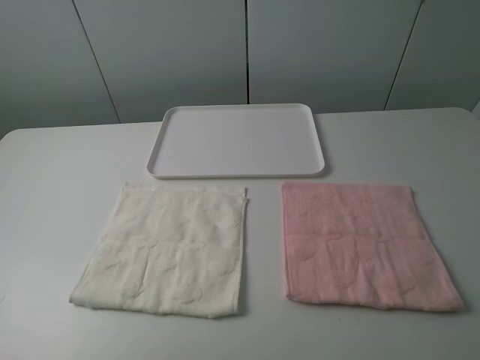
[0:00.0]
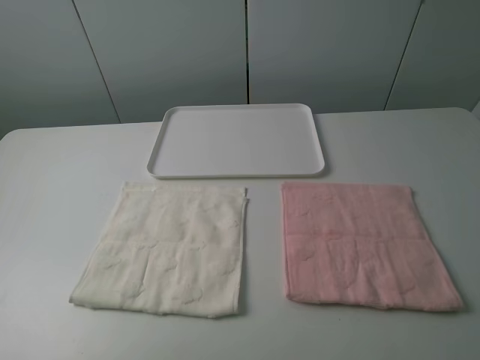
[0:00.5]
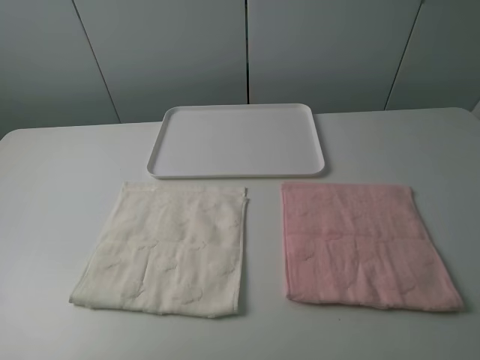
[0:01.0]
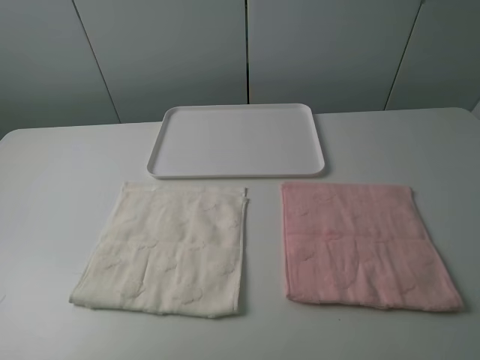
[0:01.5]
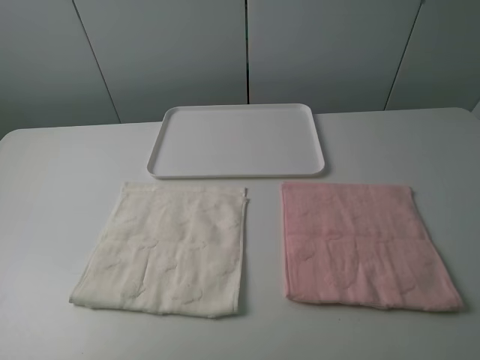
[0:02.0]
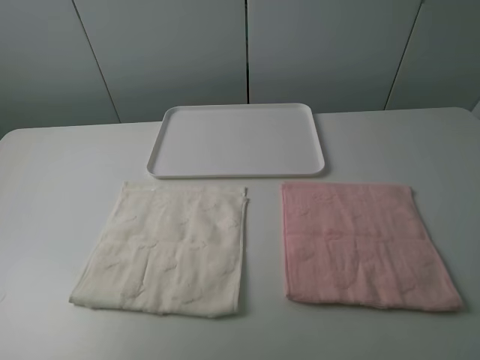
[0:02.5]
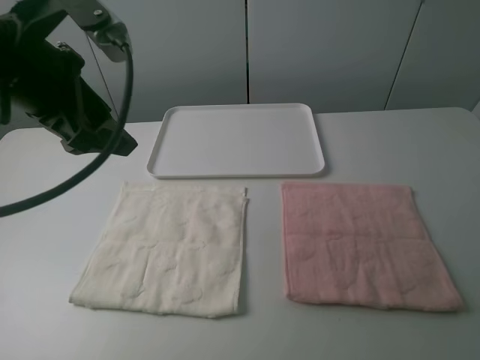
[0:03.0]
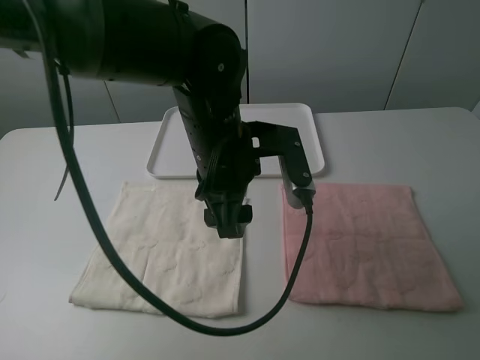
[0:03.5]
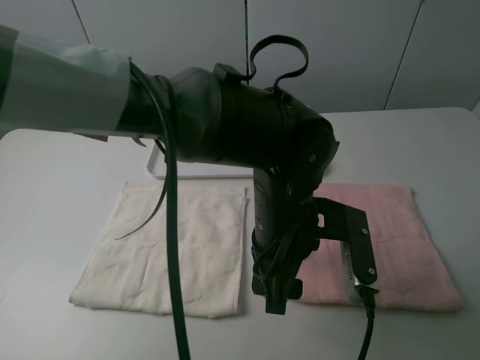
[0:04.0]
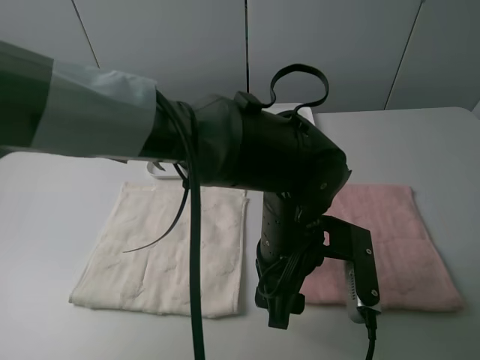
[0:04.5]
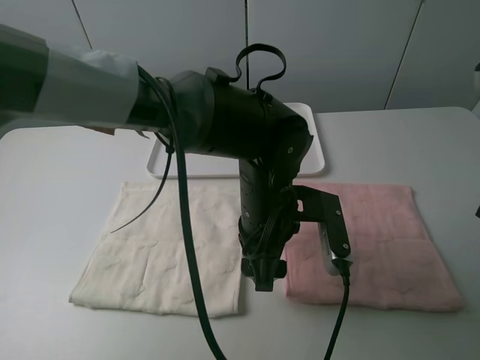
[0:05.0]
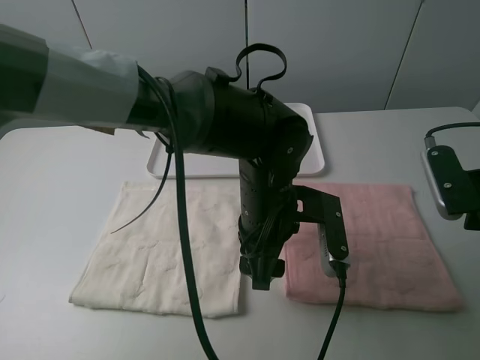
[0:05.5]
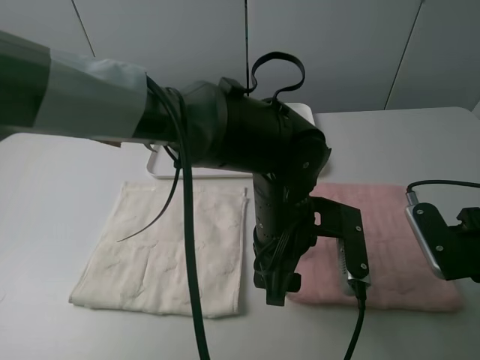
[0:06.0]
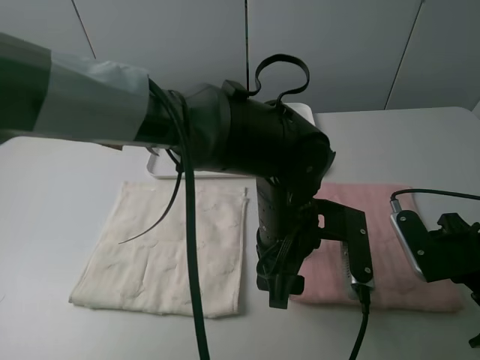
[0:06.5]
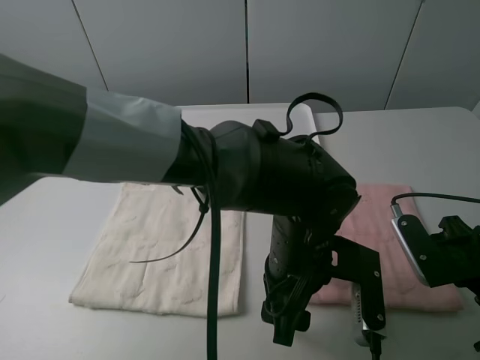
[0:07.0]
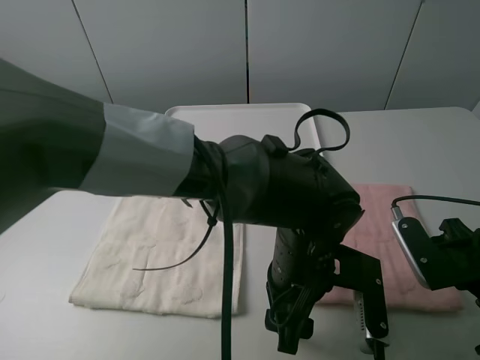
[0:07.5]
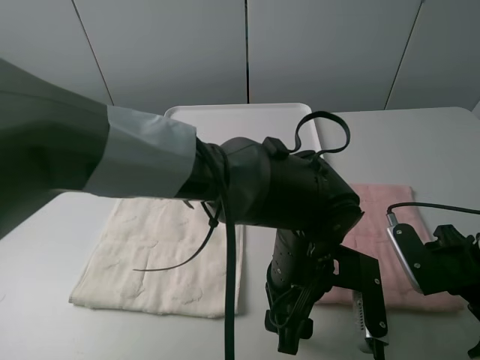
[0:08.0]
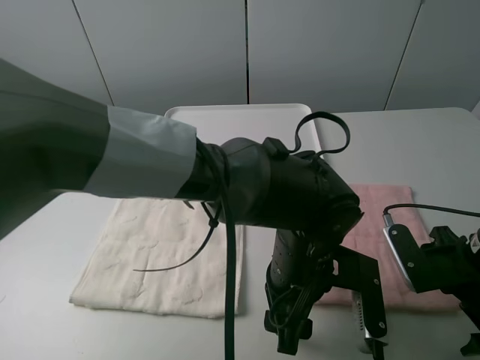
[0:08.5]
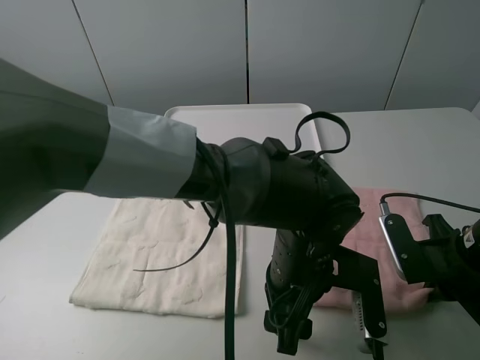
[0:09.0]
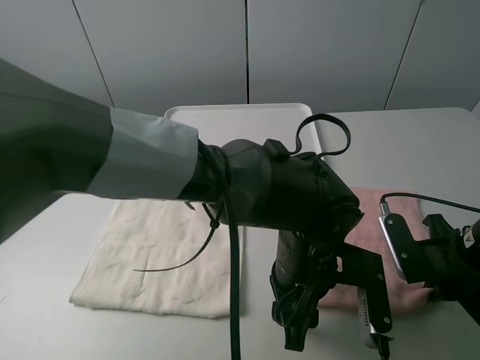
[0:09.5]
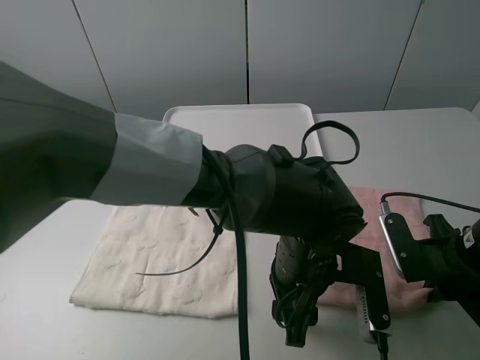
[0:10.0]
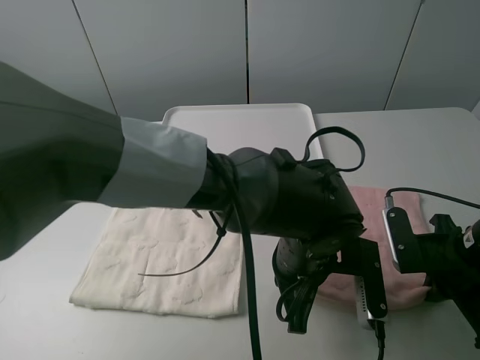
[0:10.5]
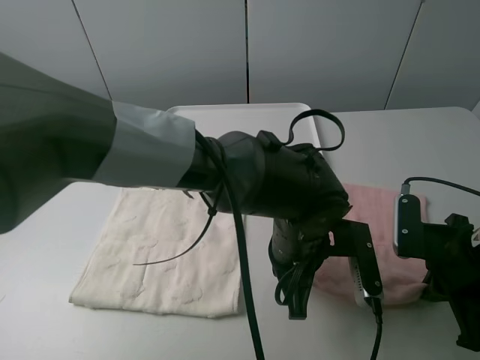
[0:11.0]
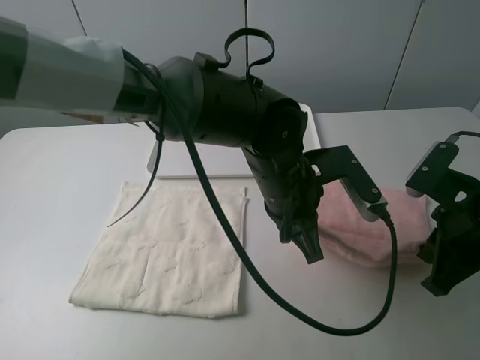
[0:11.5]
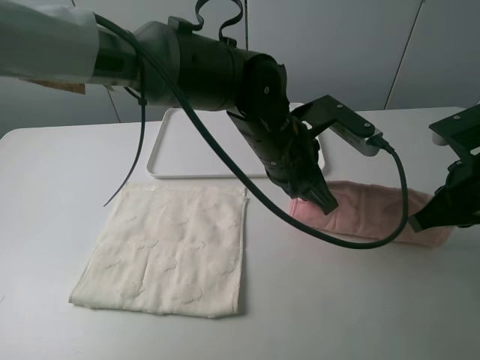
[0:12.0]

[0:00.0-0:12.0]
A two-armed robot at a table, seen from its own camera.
Task of the whole recording: fold one of the towels by two grippers and place it on the tray,then fold another towel by two grippers and place it on the folded towel.
Step, 0:00.0 to 0:10.0: Grasp the pink towel with the left gripper.
0:02.0 to 0:04.0: The left gripper is displaced to the right and forward by roughly 40 cm.
0:04.0 to 0:06.0: The right gripper shifts some 20 cm forward and downward.
0:06.0 to 0:08.0: The left gripper shifts by some 5 cm.
0:08.0 to 0:10.0: The right gripper closes.
0:10.0 to 0:12.0: The right gripper shifts roughly 10 cm upward. The left gripper travels forward and upward by roughly 15 cm, and closes.

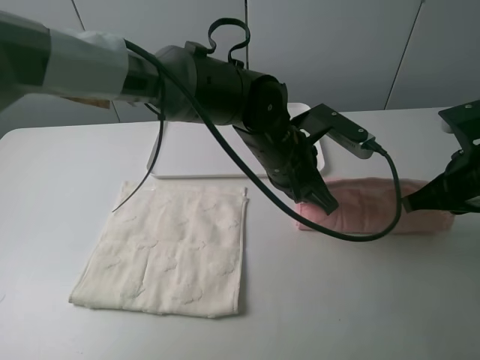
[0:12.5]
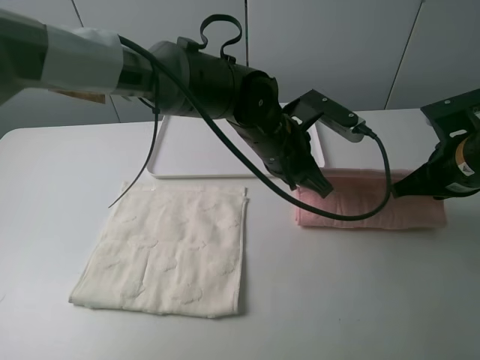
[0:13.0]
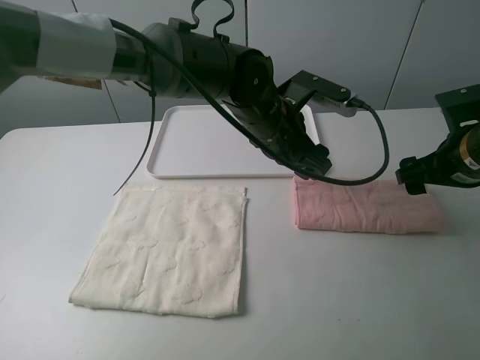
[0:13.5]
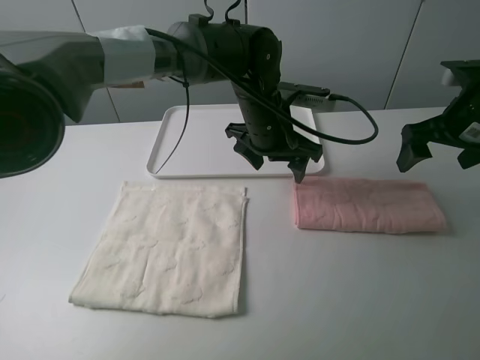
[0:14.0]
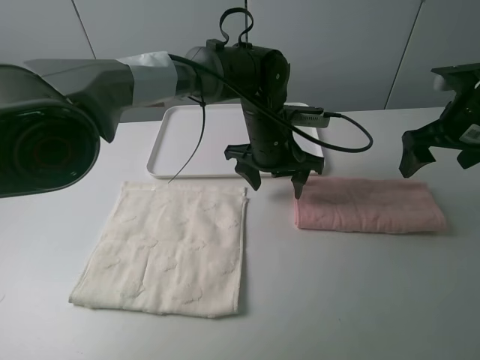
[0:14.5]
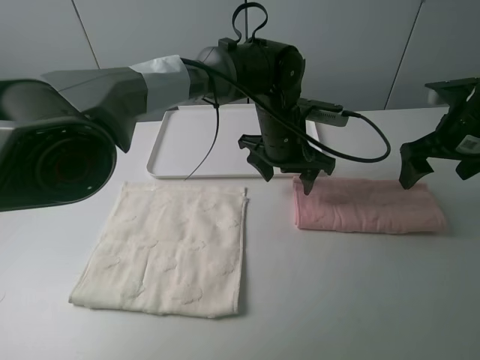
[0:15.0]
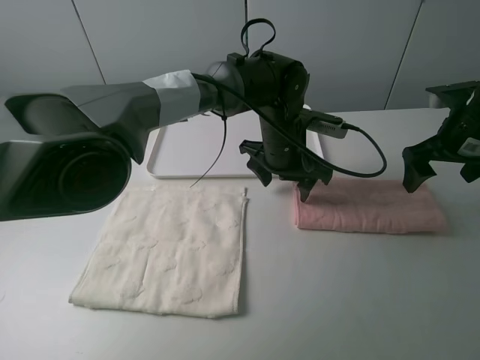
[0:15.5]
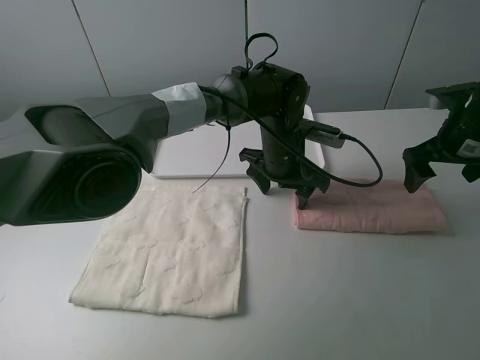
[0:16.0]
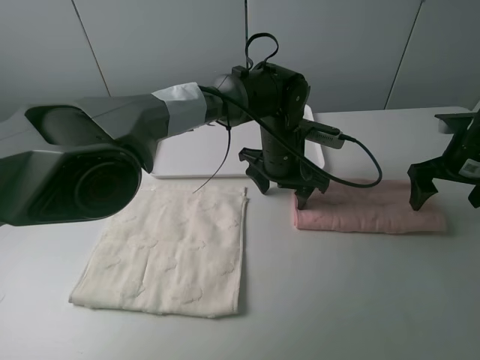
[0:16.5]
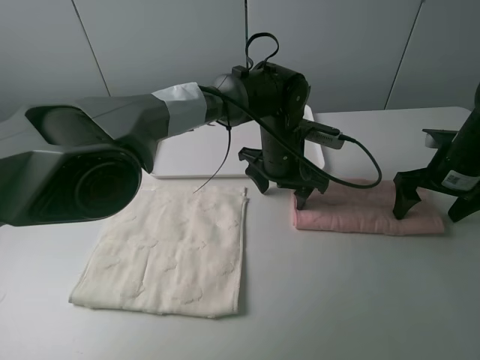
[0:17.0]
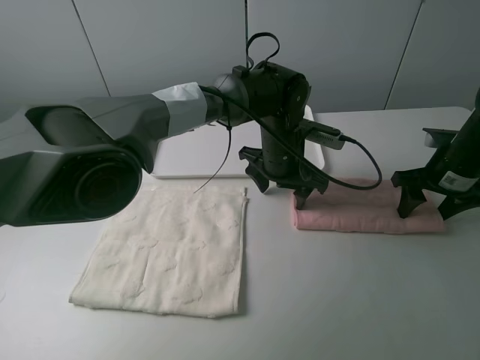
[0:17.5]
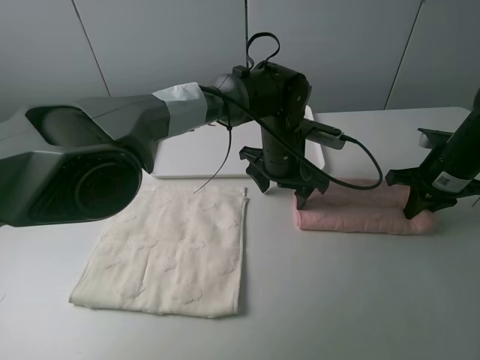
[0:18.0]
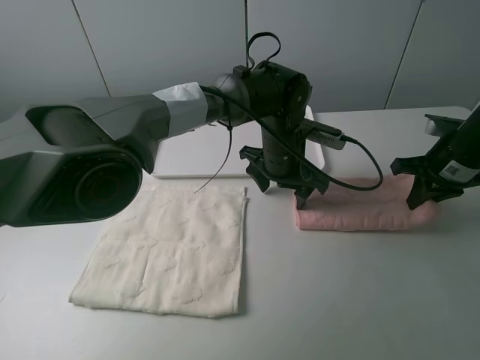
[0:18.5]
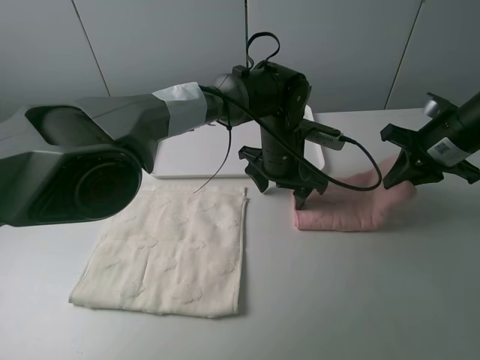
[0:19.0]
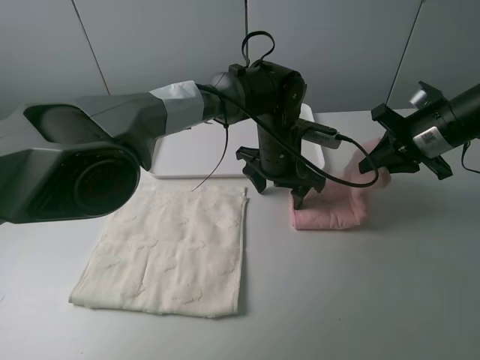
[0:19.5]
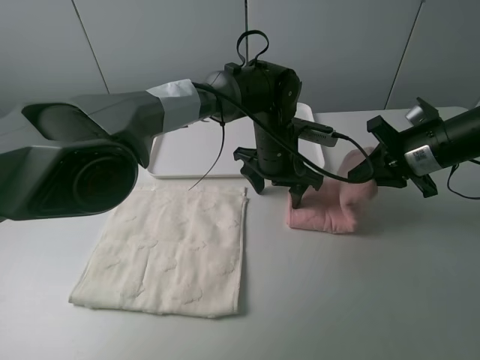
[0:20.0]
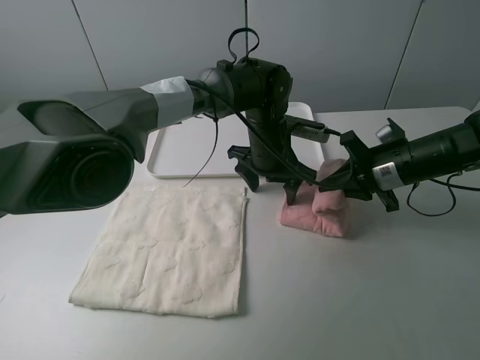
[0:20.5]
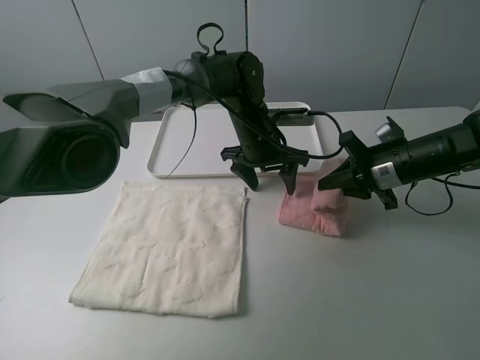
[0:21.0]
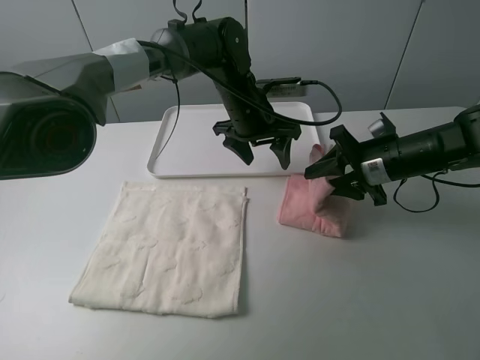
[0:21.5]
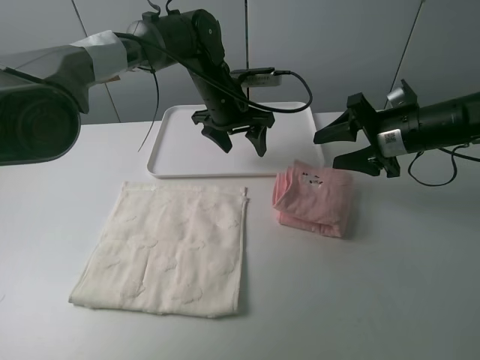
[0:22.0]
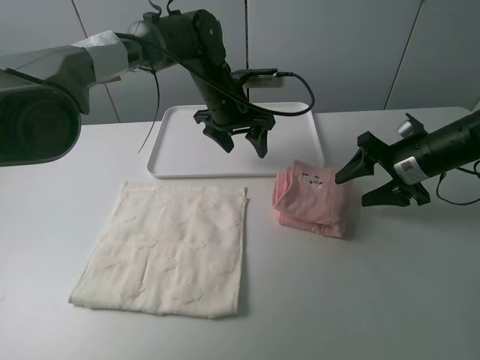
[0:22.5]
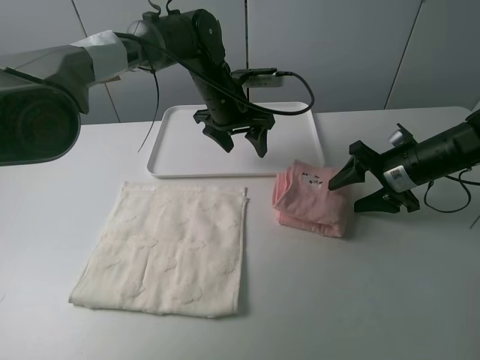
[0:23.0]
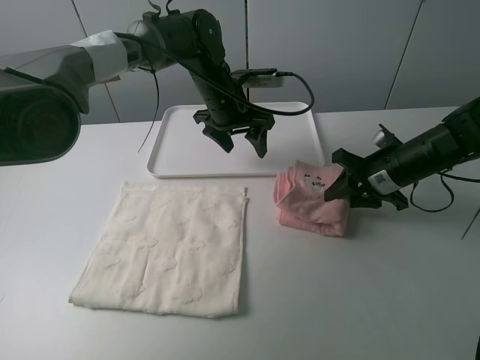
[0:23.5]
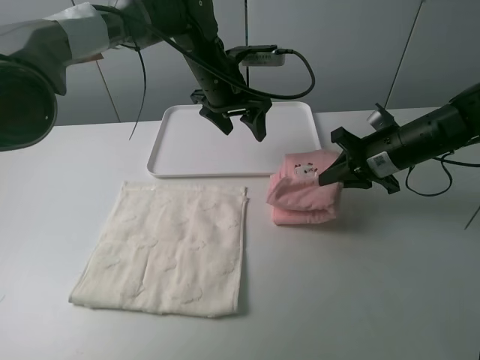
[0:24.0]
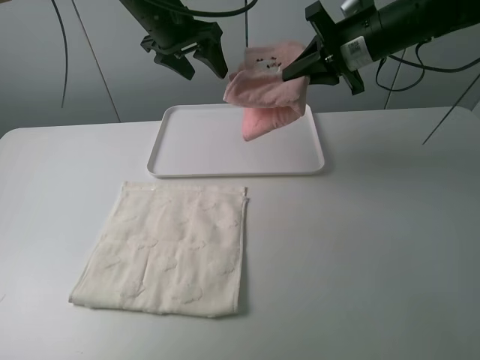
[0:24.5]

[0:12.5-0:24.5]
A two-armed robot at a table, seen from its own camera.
Task of the whole recording: fold one of the towels by two grippers and place it on the tray,then fold another towel by two grippers and place it on the folded towel.
Step, 0:14.0 to 0:16.0: Press the pink towel with the left gripper.
Step, 0:16.5 to 0:17.5: Grasp the pink towel with the right gripper.
Step, 0:18.0 to 0:21.5: Fold the pink towel from right to left with right gripper.
Step, 0:22.0 to 0:23.5: Grasp the pink towel with the right gripper.
0:12.5 to 0:14.5: The two grippers go roughly 10 cm forward. The right gripper opens. Meanwhile the left gripper opens up.
0:14.5 to 0:16.5: The right gripper travels downward by roughly 5 cm.
0:16.5 to 0:18.5: The right gripper closes up.
0:18.5 to 0:20.5: The right gripper travels to the left by roughly 10 cm.
0:20.5 to 0:22.5: The right gripper opens. Meanwhile the left gripper is displaced to the left and forward by approximately 10 cm.
0:22.5 to 0:24.5: The left gripper heads upward and to the left, covering some 15 cm, while the right gripper moves upward, to the left and forward, approximately 20 cm, and closes.

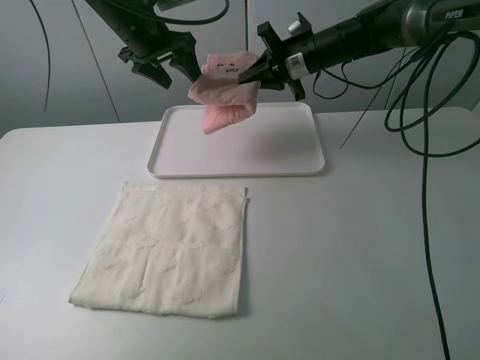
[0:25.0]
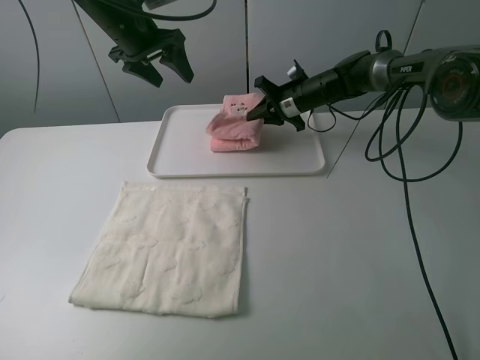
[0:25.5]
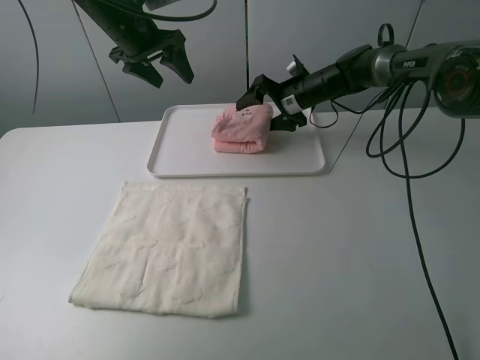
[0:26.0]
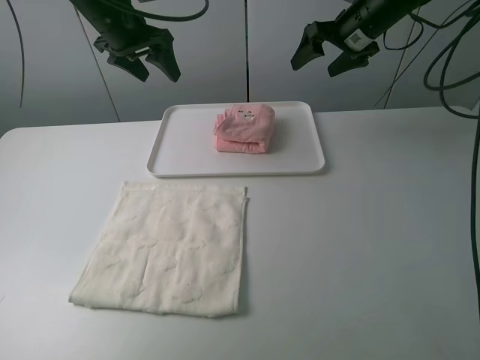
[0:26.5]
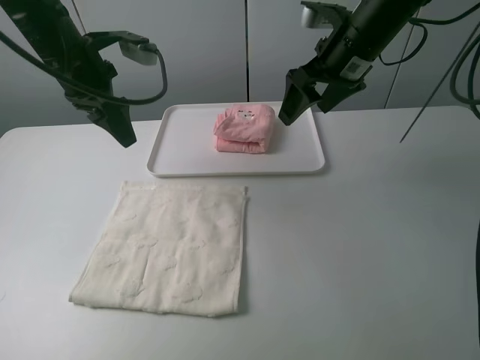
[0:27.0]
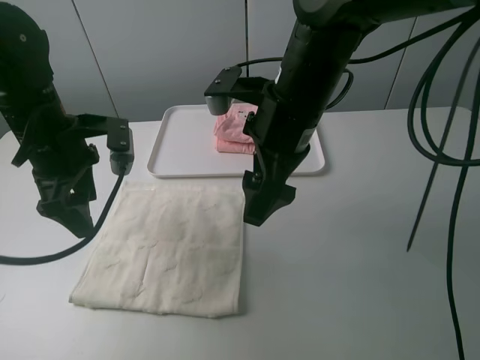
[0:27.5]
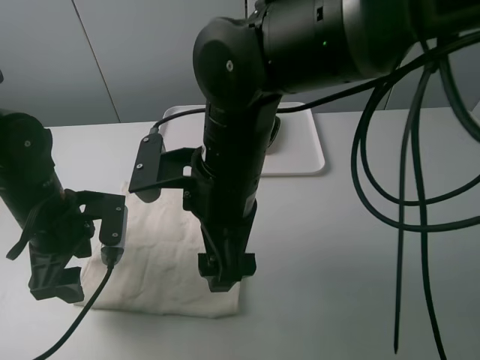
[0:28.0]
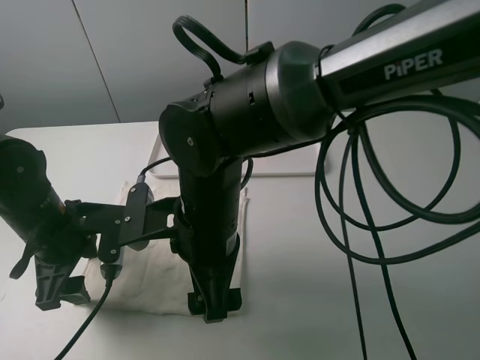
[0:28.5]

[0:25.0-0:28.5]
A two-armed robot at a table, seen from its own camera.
Task of the whole recording: fold one of the towels by two grippers and place it on the tray,then fold another towel by two grippers and place it on the folded towel.
0:25.0 to 0:27.0: The left gripper travels backward and to the left by about 10 cm, while the right gripper shifts about 15 cm backward and upward, and opens its fingers.
0:27.0 to 0:28.5: The right gripper is displaced to the left, backward and downward by some 25 cm; the left gripper shifts about 20 cm backward and downward.
